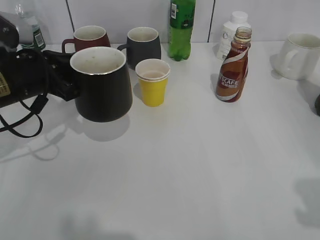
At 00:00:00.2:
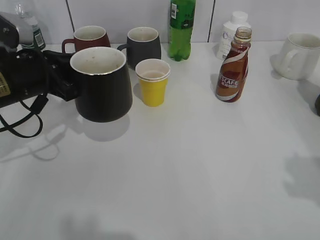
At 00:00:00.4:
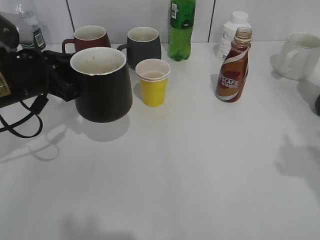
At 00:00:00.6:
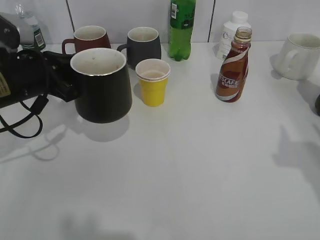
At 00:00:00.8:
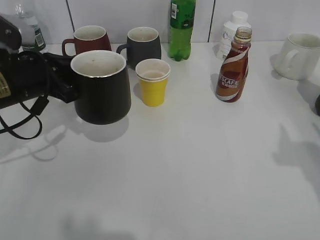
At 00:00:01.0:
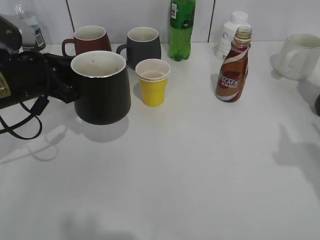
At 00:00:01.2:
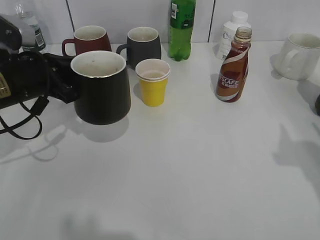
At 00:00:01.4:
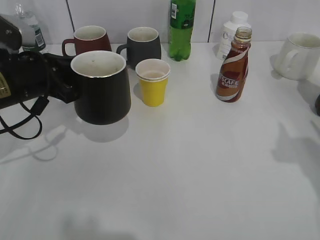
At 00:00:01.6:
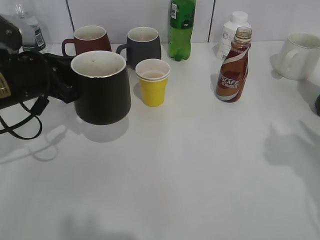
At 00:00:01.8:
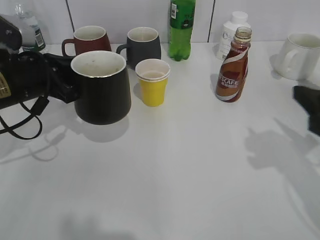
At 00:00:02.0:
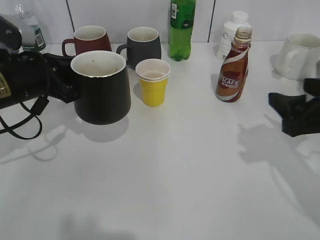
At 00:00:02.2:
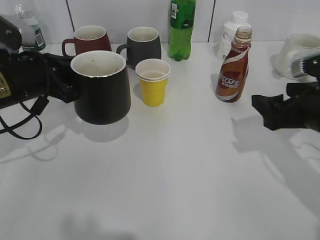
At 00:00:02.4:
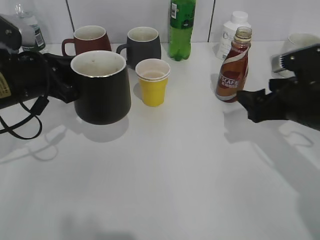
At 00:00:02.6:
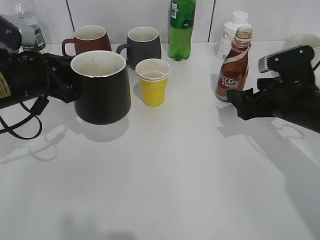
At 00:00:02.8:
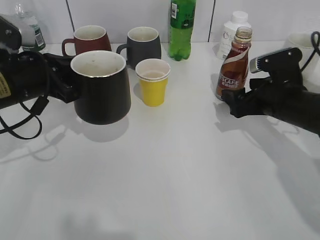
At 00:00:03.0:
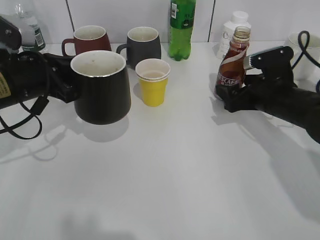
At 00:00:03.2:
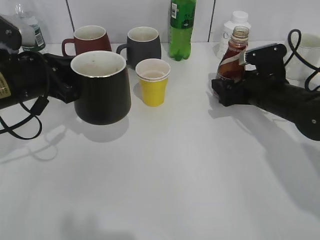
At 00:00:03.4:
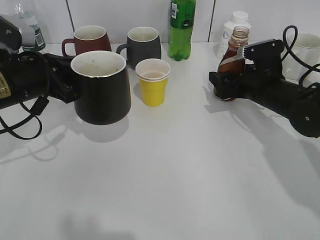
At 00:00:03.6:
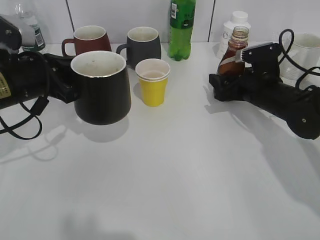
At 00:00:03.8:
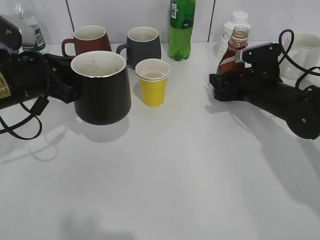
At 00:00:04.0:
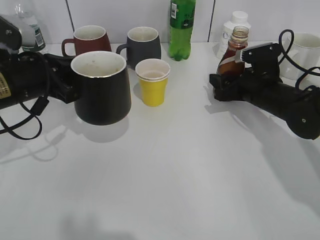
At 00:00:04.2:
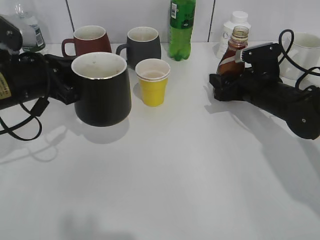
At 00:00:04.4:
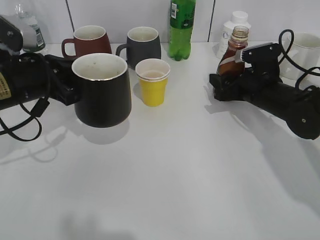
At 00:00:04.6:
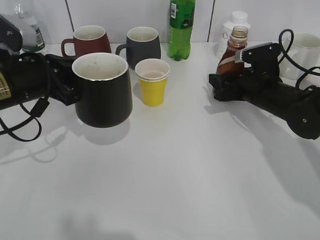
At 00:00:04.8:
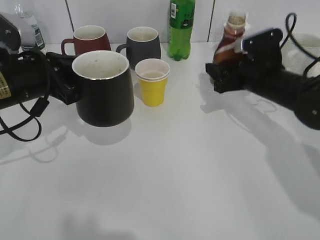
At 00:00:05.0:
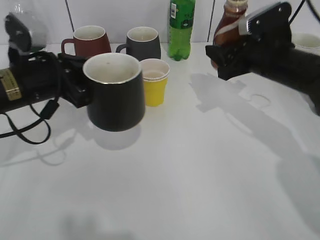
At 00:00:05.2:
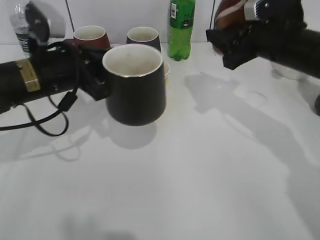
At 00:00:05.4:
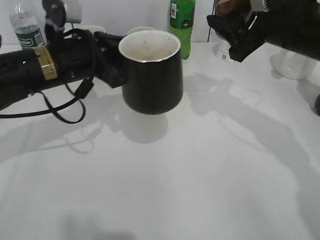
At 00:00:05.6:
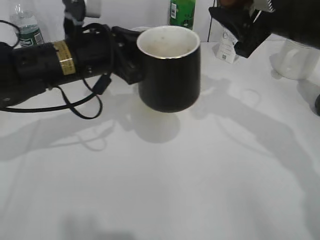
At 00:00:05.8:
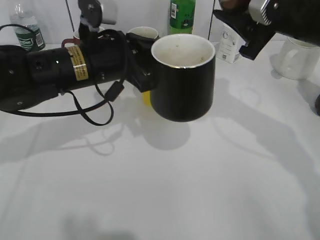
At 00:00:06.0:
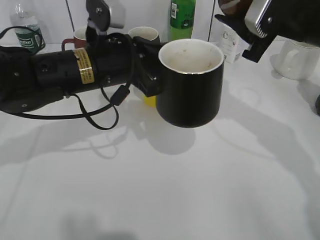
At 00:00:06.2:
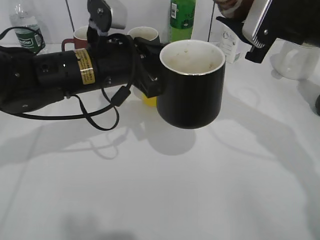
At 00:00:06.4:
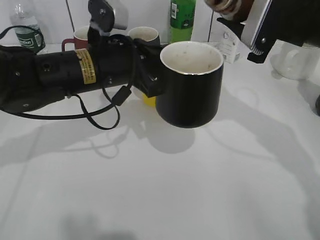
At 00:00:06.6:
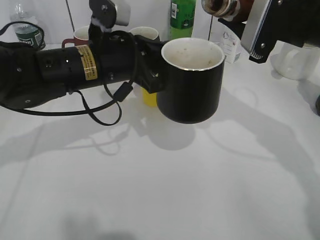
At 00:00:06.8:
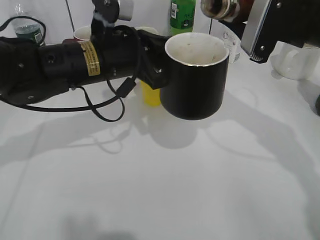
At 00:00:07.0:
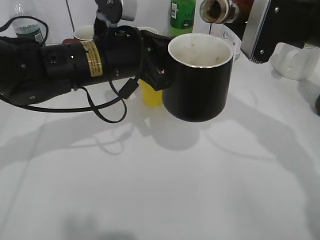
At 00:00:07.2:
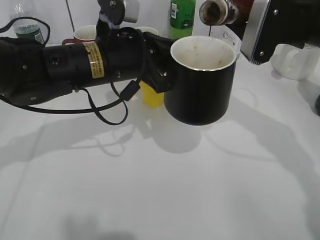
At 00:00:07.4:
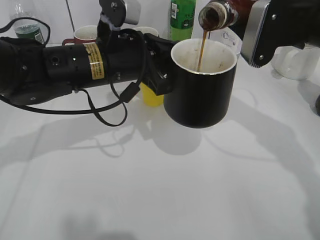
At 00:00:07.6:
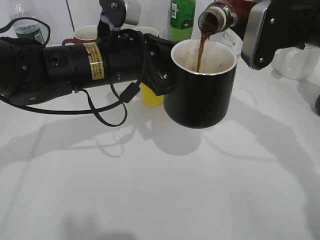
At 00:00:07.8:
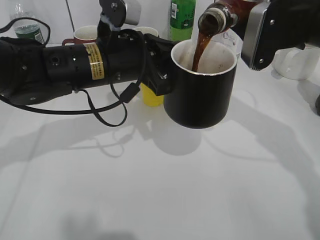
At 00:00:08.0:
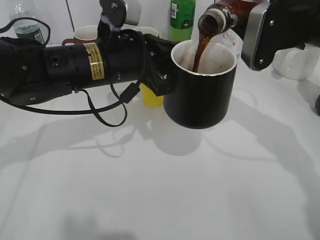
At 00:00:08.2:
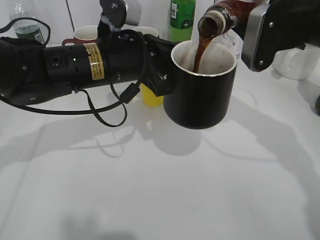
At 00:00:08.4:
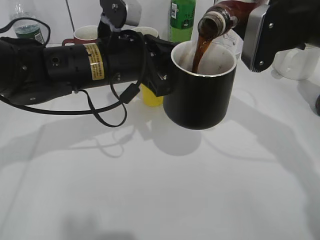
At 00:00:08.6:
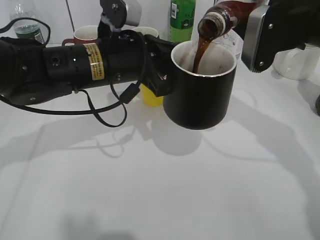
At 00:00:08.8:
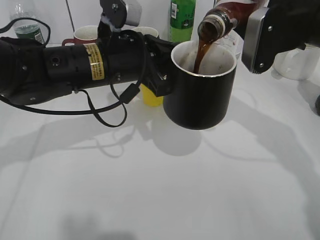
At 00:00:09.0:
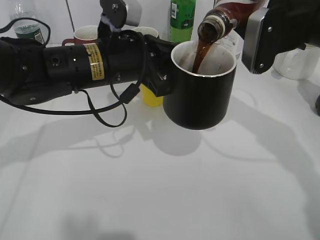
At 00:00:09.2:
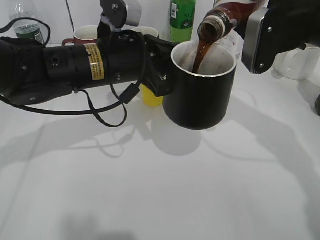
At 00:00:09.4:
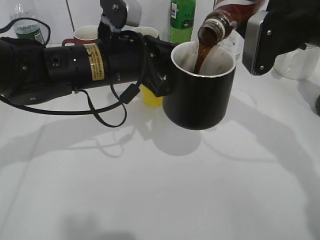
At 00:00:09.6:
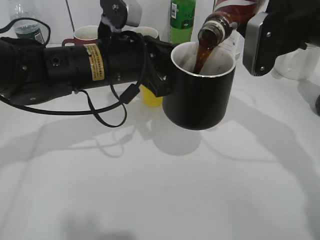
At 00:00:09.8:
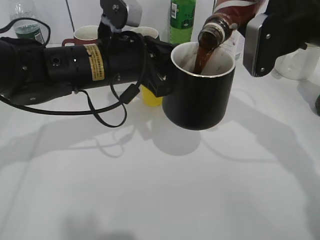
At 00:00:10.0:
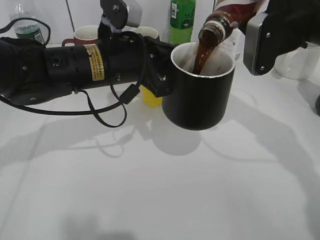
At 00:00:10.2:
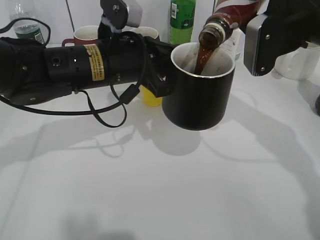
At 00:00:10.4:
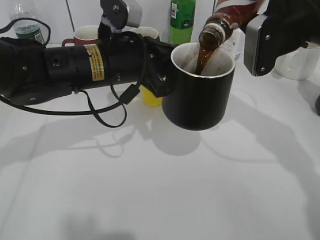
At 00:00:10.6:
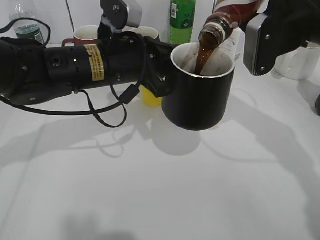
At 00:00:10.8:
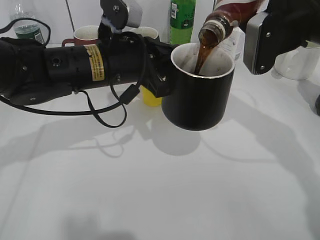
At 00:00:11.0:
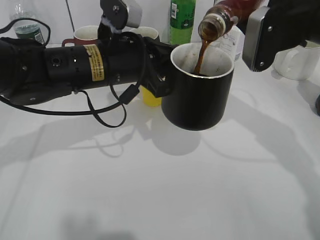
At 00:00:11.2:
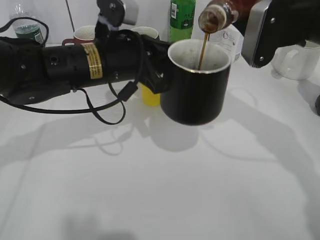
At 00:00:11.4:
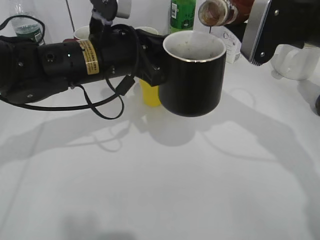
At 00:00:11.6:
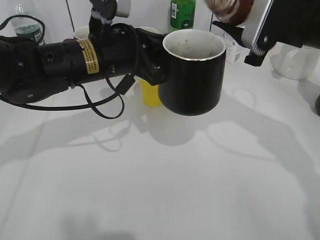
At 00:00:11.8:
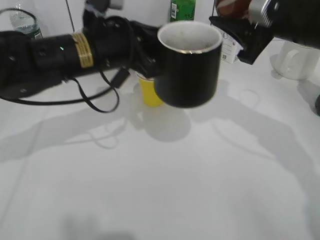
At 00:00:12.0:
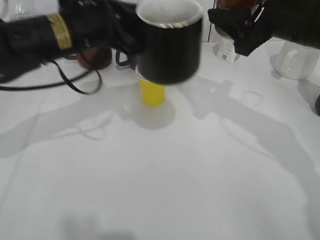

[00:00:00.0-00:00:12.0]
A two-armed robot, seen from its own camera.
Step, 00:00:00.6 to 00:00:04.4: Grasp the bottle with coffee with right gripper.
Step, 00:00:04.8 to 00:00:11.4: Pour the coffee from bottle to cup with right gripper.
00:00:00.0 to 00:00:01.6: The right gripper heads forward, covering approximately 10 cm.
00:00:01.6 to 00:00:03.0: The right gripper heads forward, downward and to the left, covering some 20 cm, and opens.
00:00:03.0 to 00:00:04.4: The right gripper closes.
00:00:04.4 to 00:00:06.0: The left gripper travels to the right by some 15 cm. Meanwhile the right gripper moves upward, some 15 cm.
00:00:07.6 to 00:00:10.4: The grippers move only a little.
00:00:10.4 to 00:00:12.0: The left gripper ends up roughly 5 cm from where it was.

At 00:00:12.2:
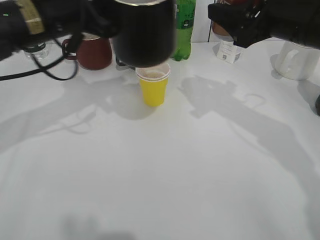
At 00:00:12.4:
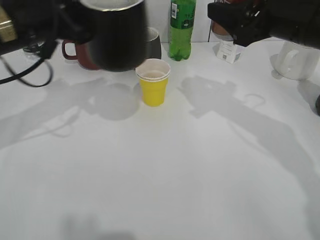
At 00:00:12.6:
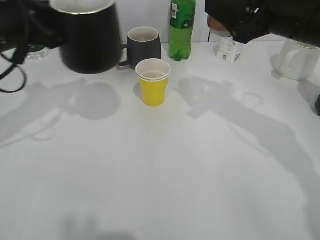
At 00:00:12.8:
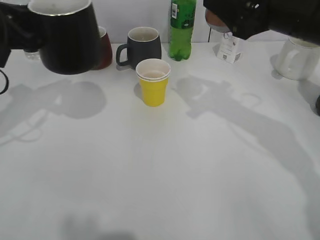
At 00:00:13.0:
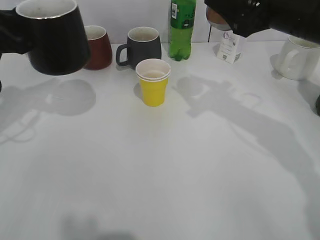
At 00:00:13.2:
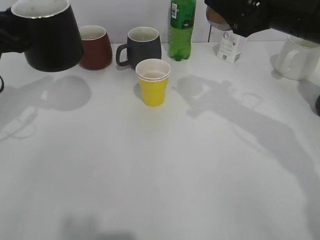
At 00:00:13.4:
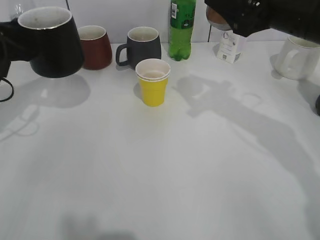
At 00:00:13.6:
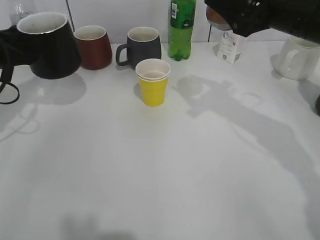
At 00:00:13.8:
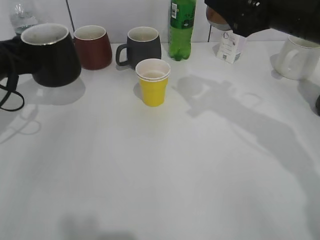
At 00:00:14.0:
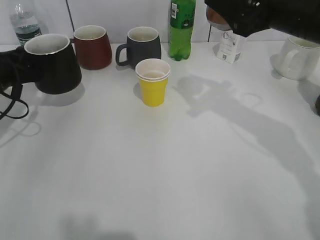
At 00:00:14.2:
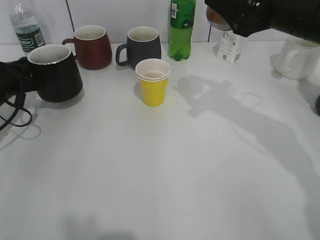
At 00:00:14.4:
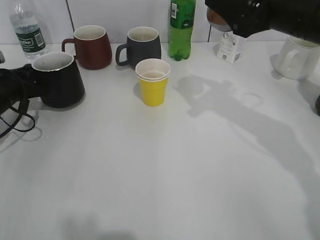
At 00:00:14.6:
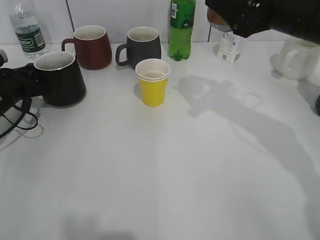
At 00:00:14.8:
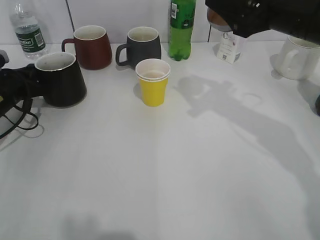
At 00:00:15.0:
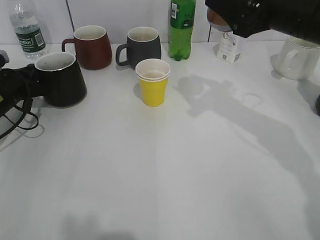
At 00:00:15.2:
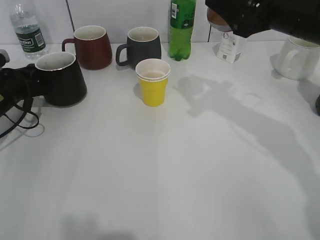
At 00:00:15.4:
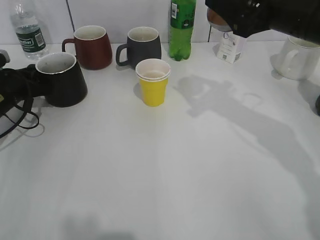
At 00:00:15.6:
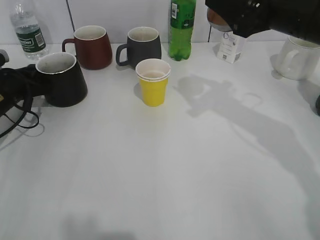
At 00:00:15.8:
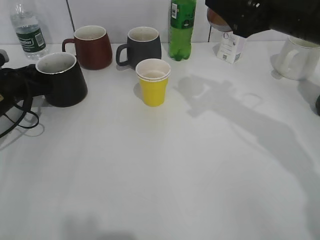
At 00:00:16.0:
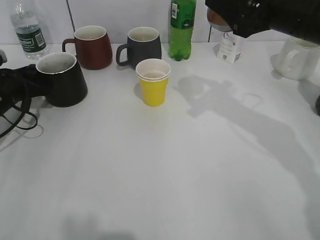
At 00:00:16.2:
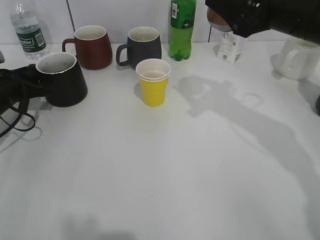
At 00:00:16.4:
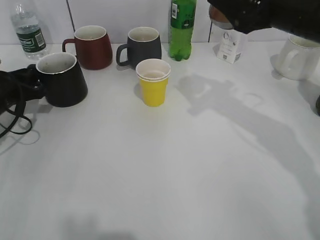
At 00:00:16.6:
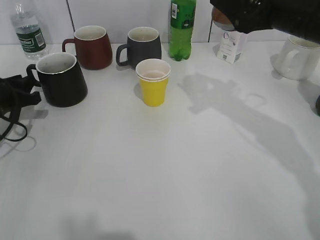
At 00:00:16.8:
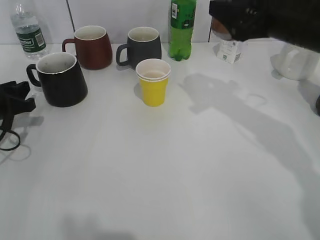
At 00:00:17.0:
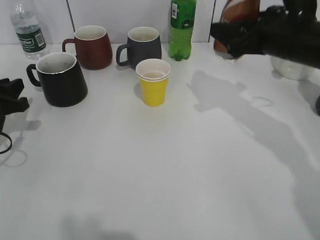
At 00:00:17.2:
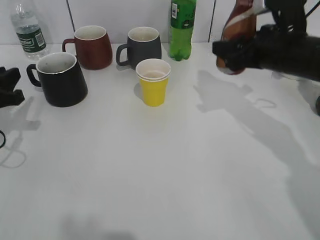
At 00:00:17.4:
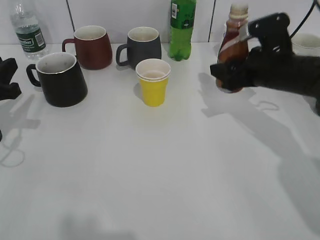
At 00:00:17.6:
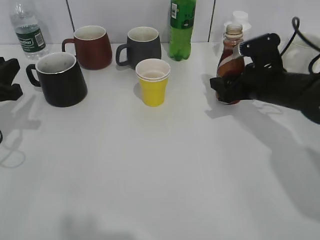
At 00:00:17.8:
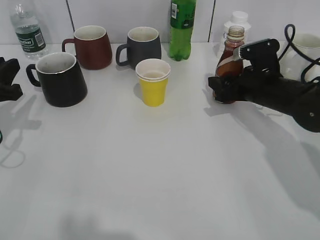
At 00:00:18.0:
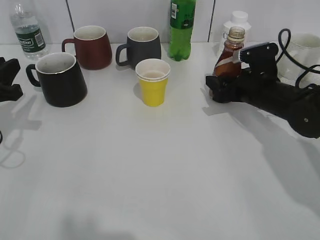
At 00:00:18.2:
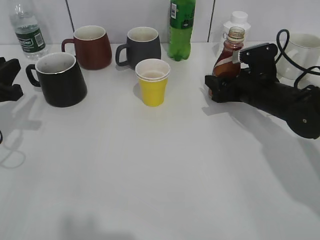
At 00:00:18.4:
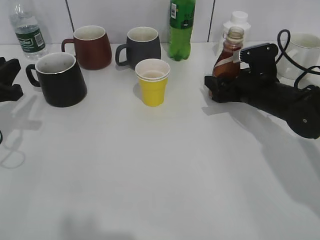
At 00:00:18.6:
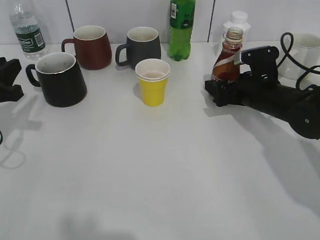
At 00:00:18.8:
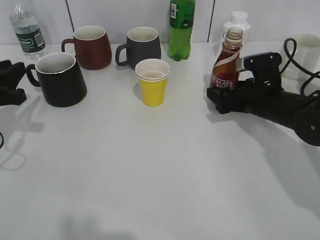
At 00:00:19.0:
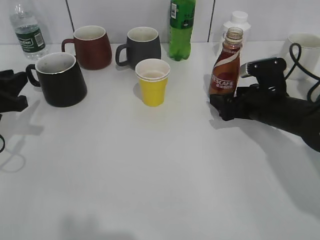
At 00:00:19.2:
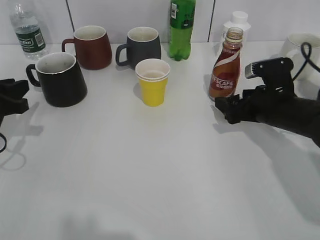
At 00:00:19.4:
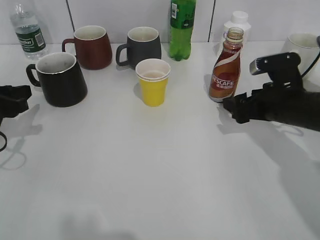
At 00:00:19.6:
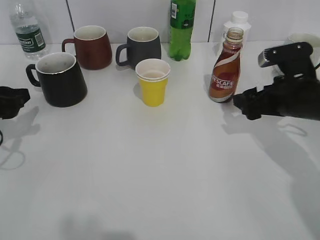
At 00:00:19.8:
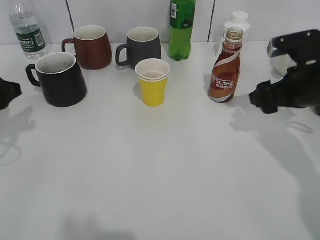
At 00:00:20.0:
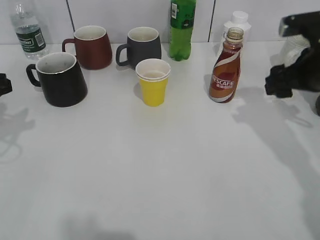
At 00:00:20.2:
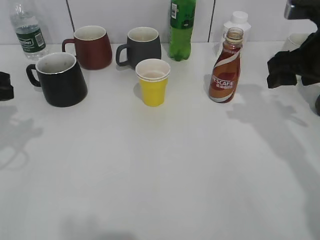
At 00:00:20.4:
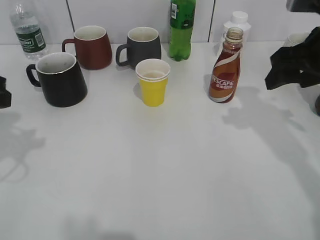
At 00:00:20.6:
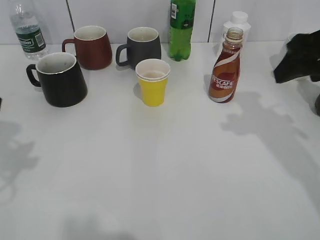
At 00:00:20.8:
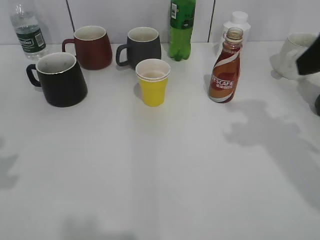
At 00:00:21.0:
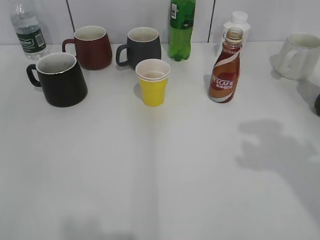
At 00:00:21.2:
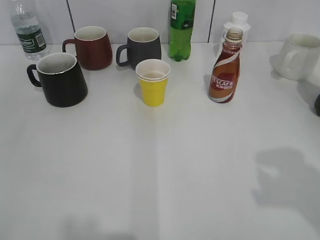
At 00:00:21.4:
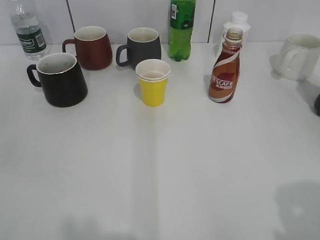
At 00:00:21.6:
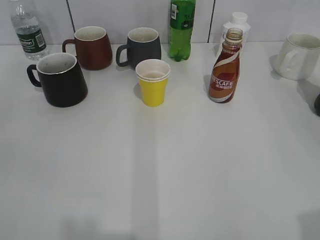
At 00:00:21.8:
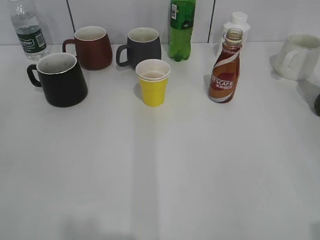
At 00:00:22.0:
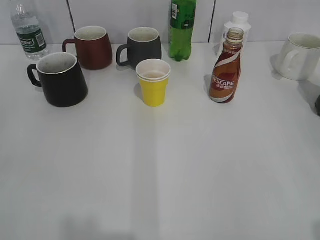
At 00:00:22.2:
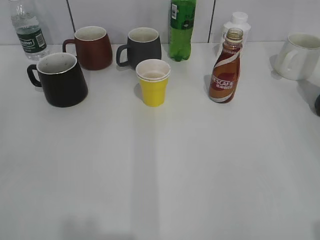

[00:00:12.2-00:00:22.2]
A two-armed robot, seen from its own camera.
Step, 00:00:12.2 to 00:00:16.4: Place the black cup on the table with left gripper.
Step, 00:00:16.6 to 00:00:18.8: Place the coffee bottle on the table with right gripper.
00:00:12.2 to 00:00:13.6: The left gripper goes about 15 cm to the left and downward.
00:00:13.6 to 00:00:15.0: The left gripper moves downward, some 10 cm.
00:00:15.0 to 00:00:16.4: The left gripper opens its fingers.
00:00:16.4 to 00:00:18.0: The right gripper goes roughly 15 cm downward. The left gripper travels backward and upward by about 10 cm.
00:00:18.0 to 00:00:19.4: The right gripper moves backward, some 5 cm, and opens its fingers.
00:00:19.4 to 00:00:20.8: The two grippers go about 20 cm upward and backward. The right gripper closes its fingers.
00:00:20.8 to 00:00:22.2: The right gripper travels backward by roughly 20 cm.
